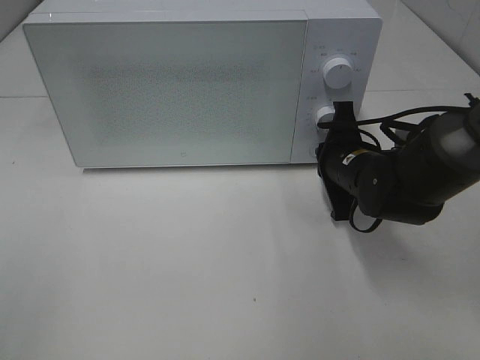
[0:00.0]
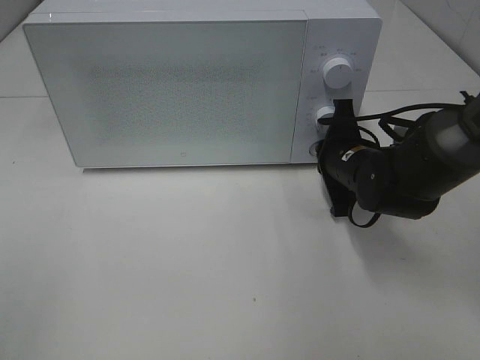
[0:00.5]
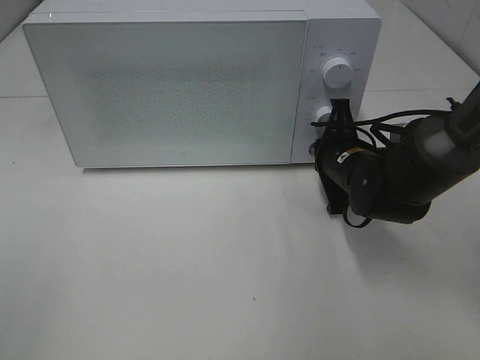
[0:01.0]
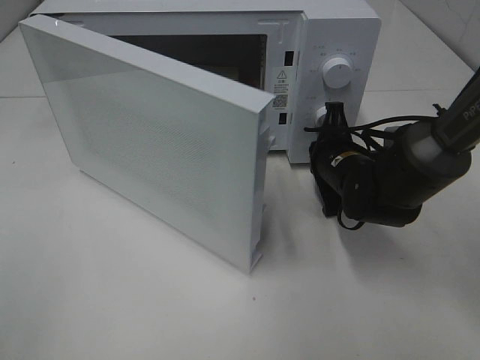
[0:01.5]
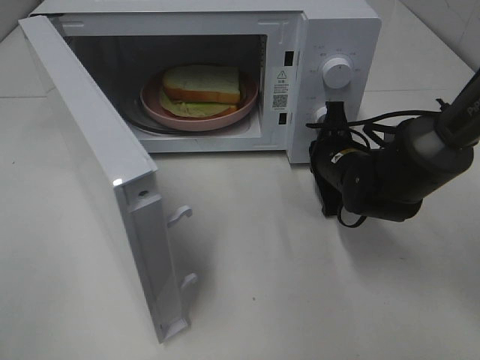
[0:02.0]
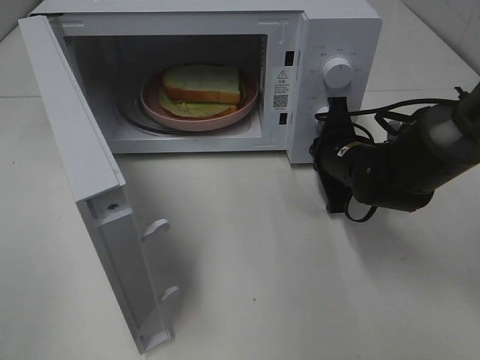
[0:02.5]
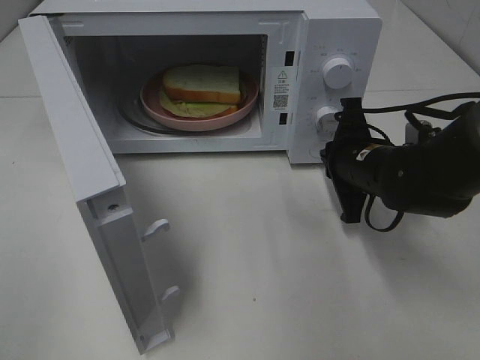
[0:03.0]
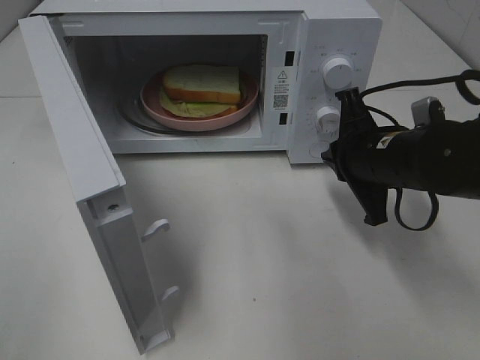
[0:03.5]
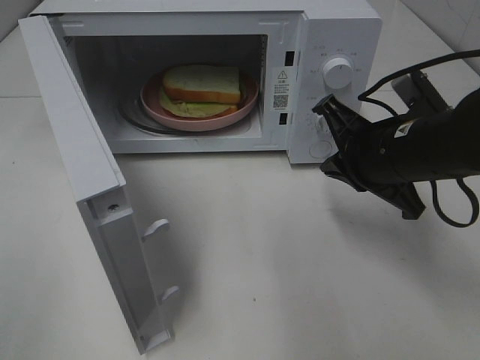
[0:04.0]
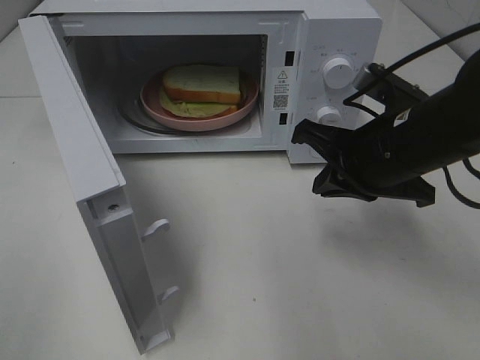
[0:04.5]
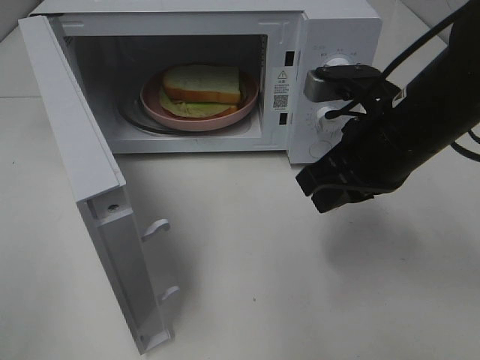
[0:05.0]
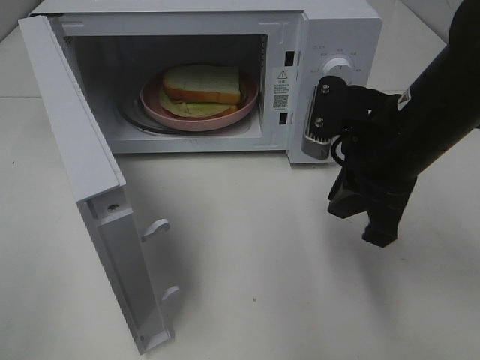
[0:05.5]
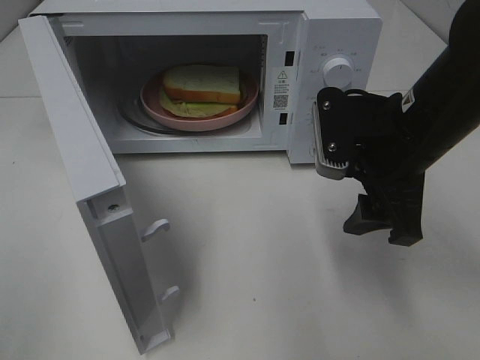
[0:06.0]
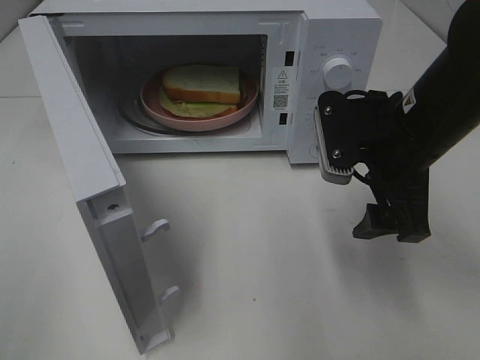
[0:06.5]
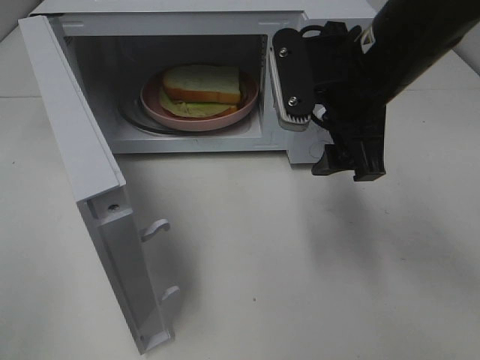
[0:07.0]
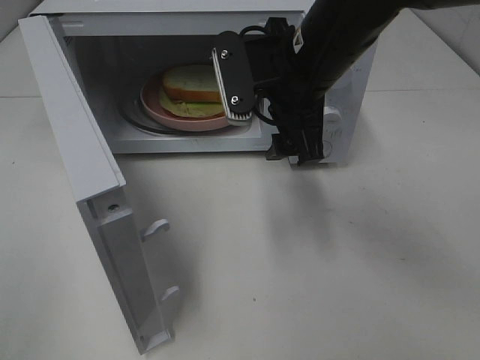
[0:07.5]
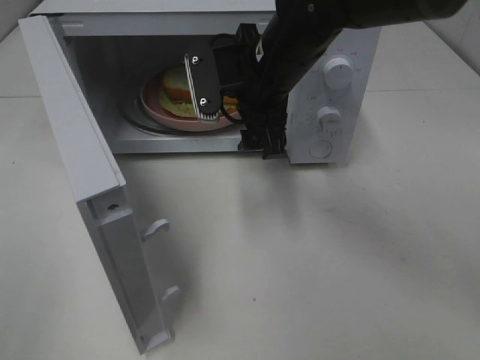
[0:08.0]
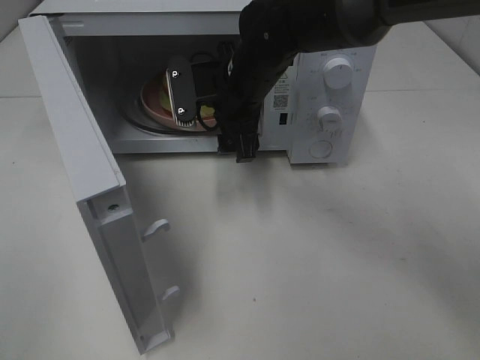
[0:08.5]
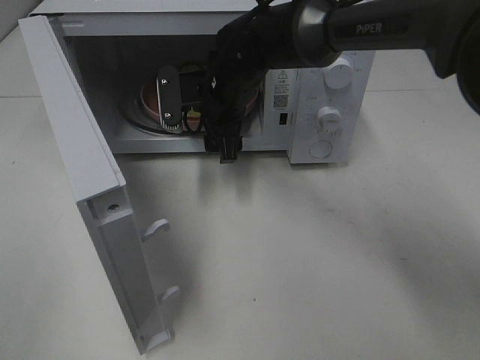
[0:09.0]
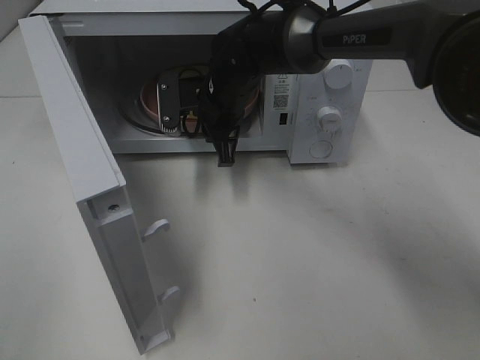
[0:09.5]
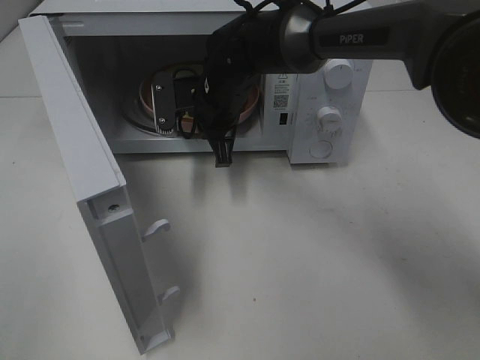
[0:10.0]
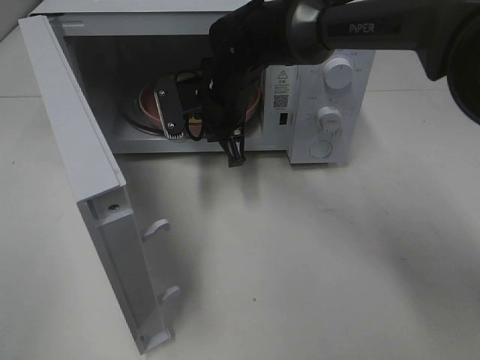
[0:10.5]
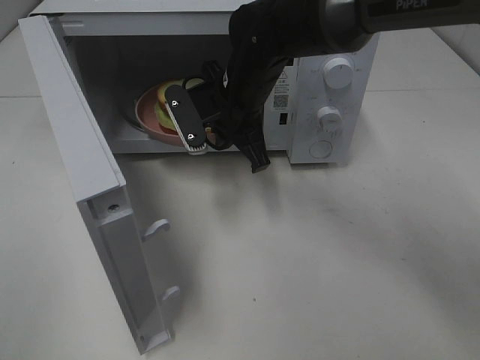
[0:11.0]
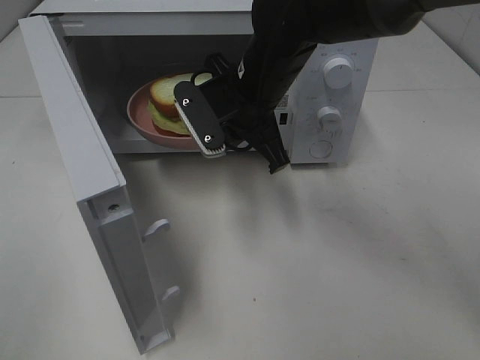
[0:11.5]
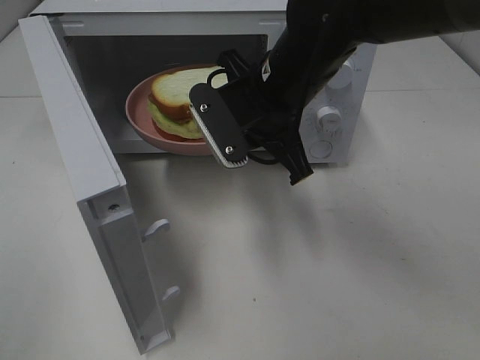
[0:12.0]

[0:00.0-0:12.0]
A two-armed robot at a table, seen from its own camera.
Task of the whole recording: Heat Sandwich.
Step, 0.0 to 3.0 s: Right hand: press the switch.
Step, 3.5 to 10.0 s: Right hand: grab the plate with the sandwich.
2.0 to 4.0 s: The right gripper goes approximately 15 cm upward and backward.
4.0 to 6.0 s: The right gripper opens.
6.0 to 8.0 s: The right gripper heads to the left and forward, covering approximately 15 cm.
8.0 to 10.0 s: The right gripper travels downward, forward and to the left by approximately 10 cm, and closes.
10.0 to 12.0 s: The right gripper heads backward, upward and to the right, covering approximately 15 cm.

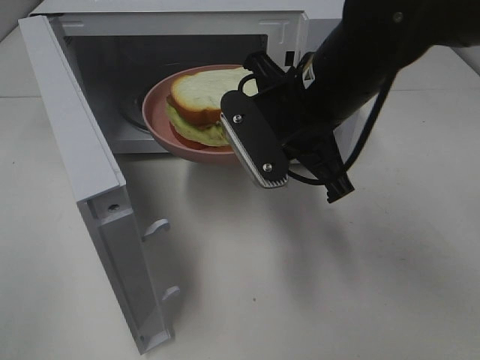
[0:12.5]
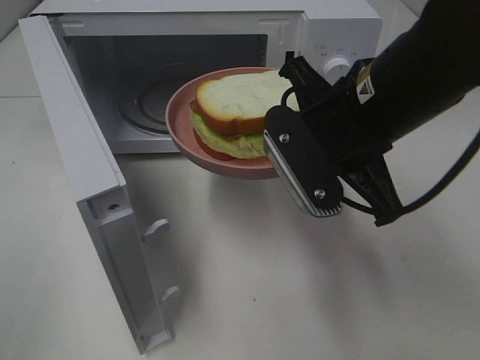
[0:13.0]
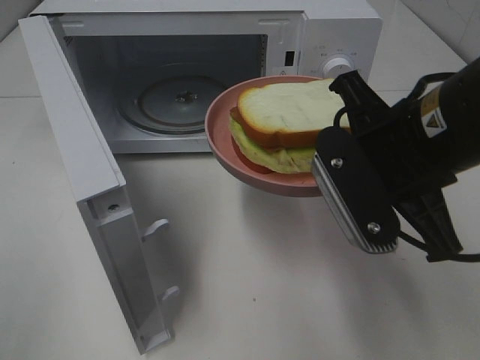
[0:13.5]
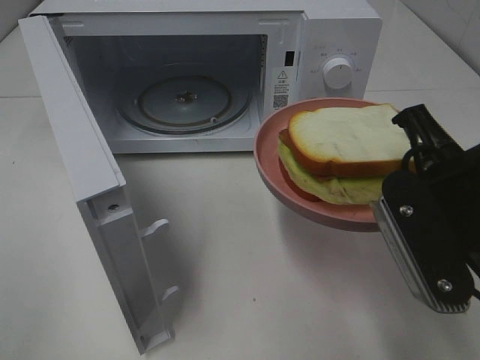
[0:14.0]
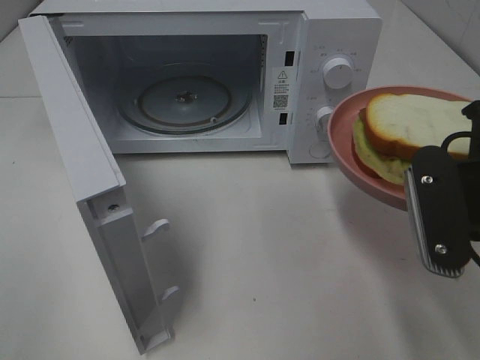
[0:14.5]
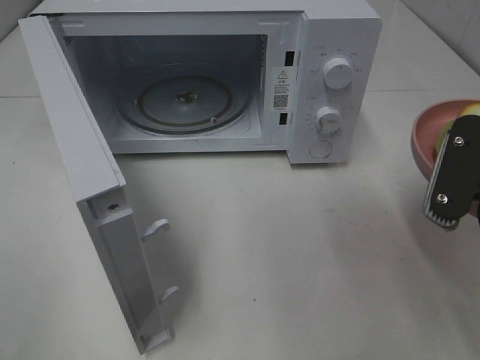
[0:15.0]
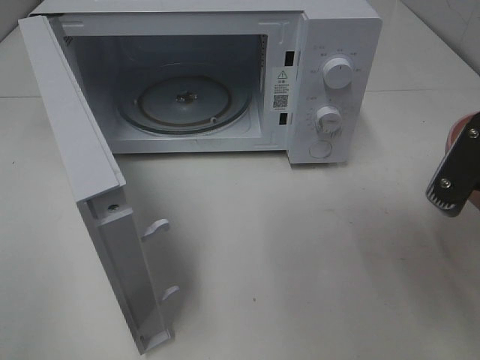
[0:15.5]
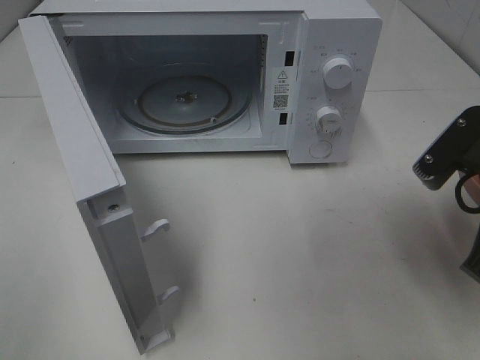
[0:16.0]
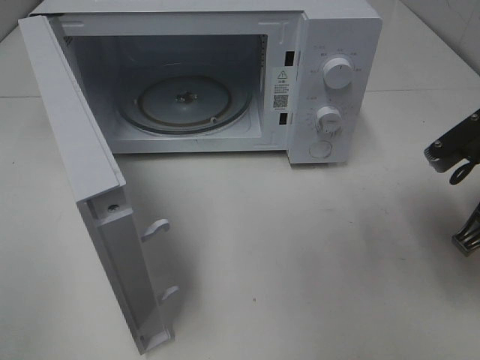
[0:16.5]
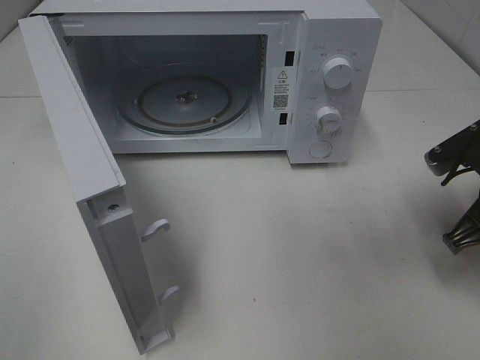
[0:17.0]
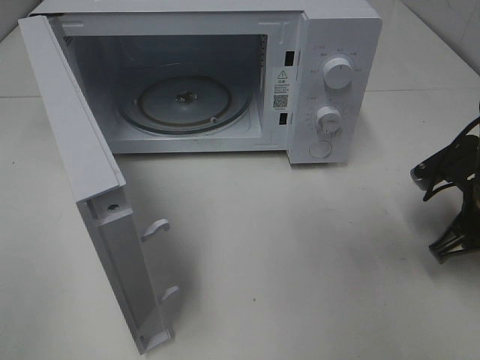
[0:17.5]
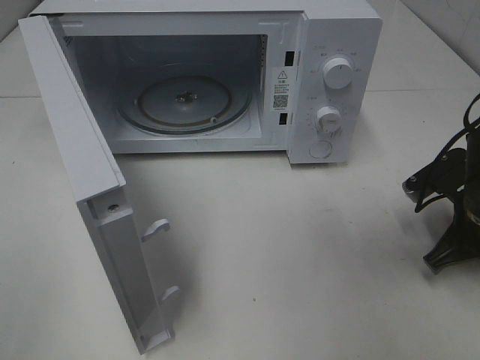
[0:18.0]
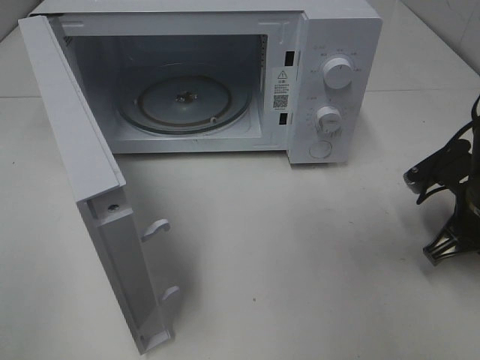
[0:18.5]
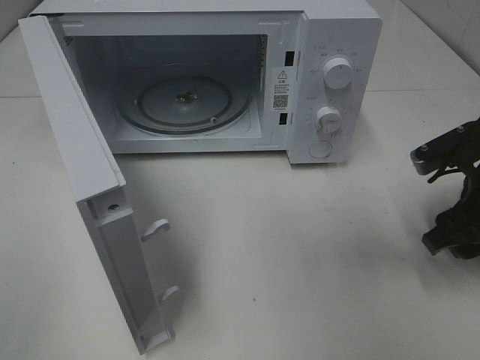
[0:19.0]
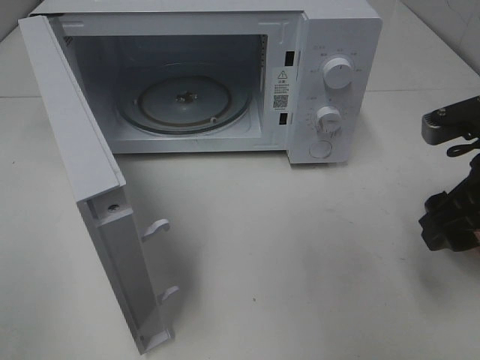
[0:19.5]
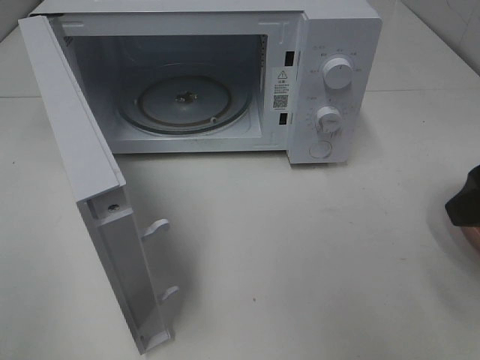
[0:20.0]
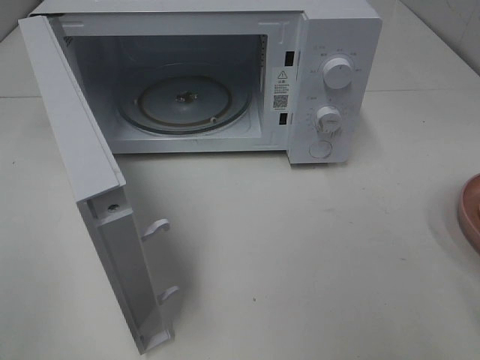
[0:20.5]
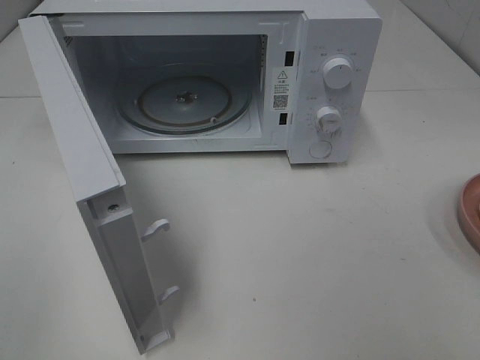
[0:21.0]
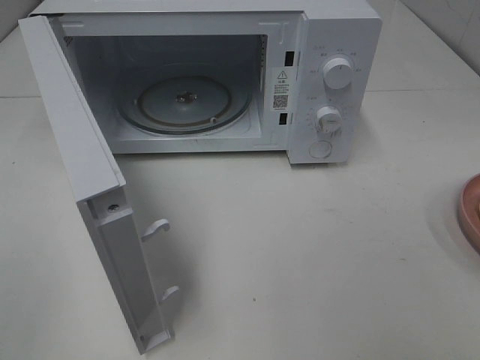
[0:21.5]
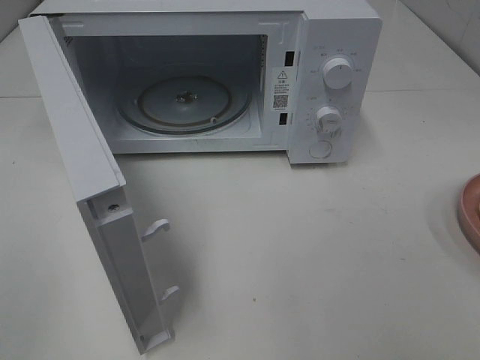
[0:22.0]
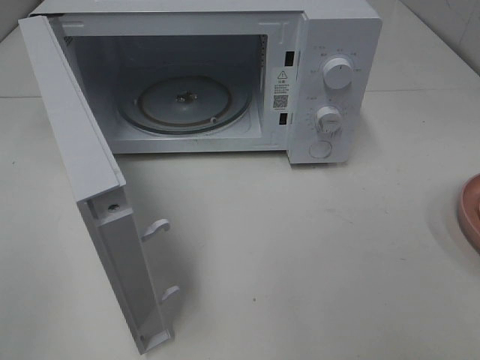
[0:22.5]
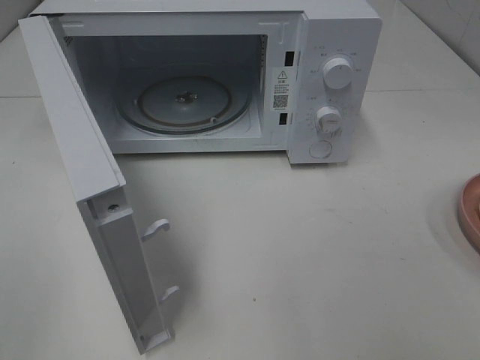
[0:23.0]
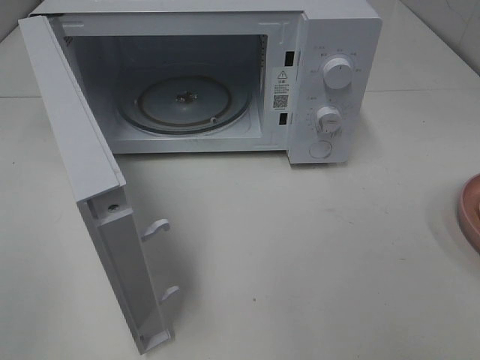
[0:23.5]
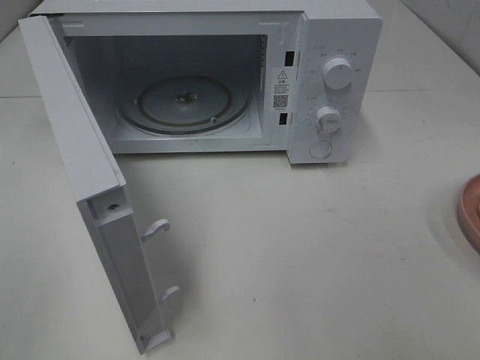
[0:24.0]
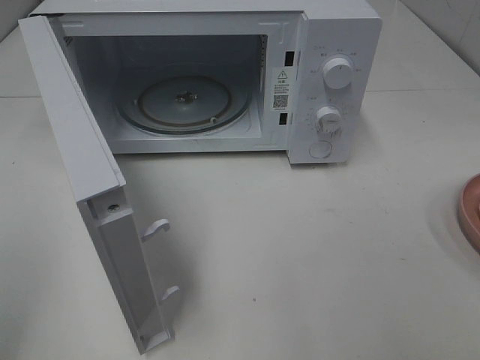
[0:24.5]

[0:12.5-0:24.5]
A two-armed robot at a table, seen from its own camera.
Task of the whole recording: Heat Sandwich.
Step, 12.5 to 19.0 s: Right hand: place the plate on the table.
12.5 to 14.5 s: The right gripper goes about 15 cm to the right and backward.
14.5 to 16.5 s: The right gripper shifts roughly 10 cm forward, to the right and downward.
16.5 to 18.5 s: The right gripper is displaced downward by roughly 5 cm.
18.5 to 20.5 s: The right gripper moves upward and backward, roughly 25 cm, and opens its fingers.

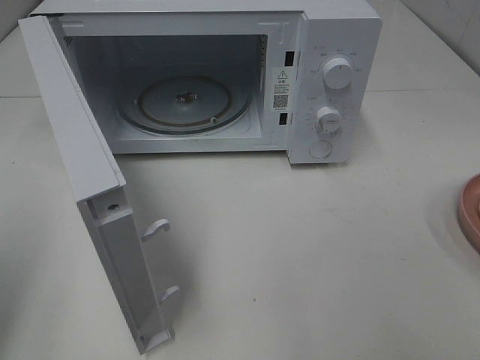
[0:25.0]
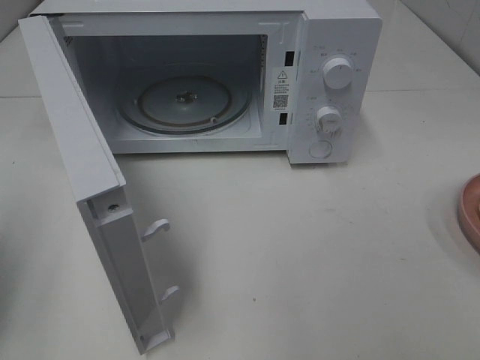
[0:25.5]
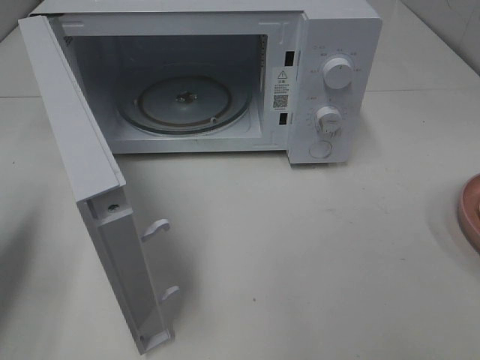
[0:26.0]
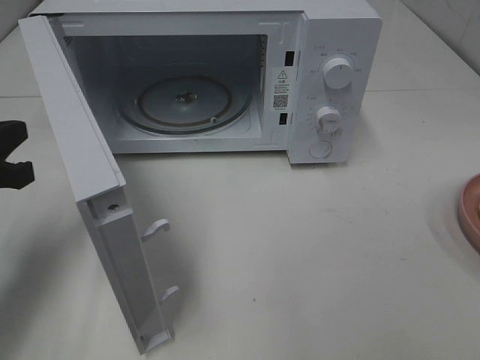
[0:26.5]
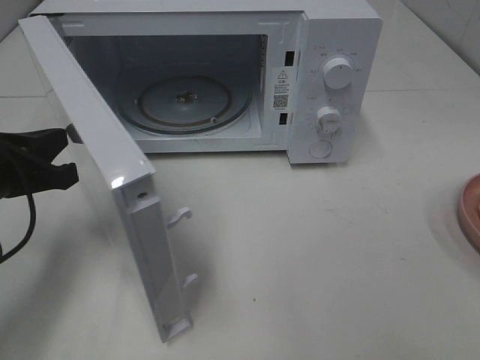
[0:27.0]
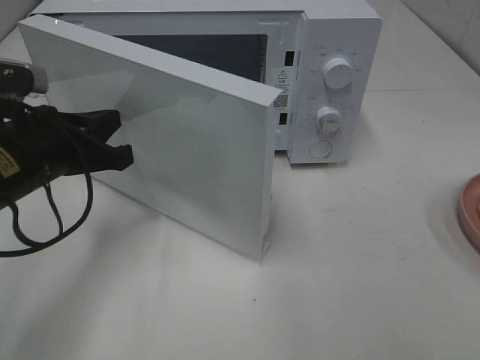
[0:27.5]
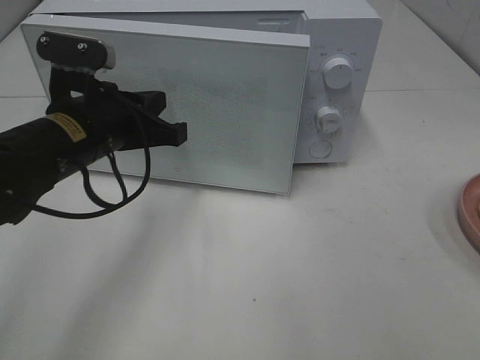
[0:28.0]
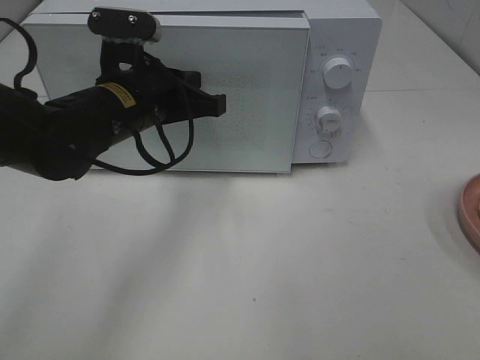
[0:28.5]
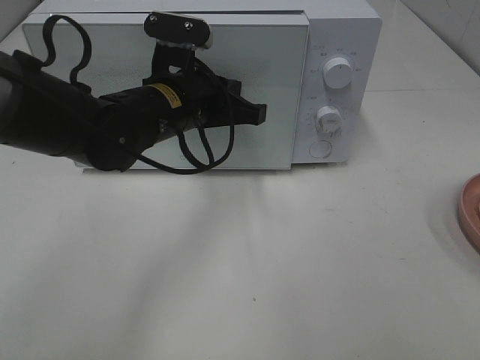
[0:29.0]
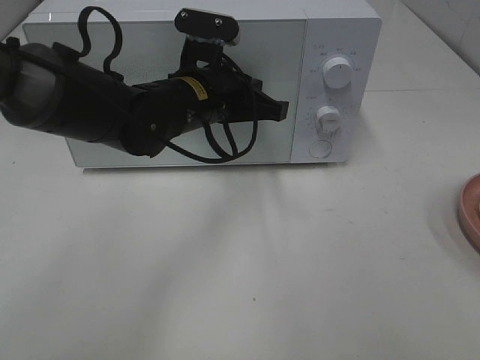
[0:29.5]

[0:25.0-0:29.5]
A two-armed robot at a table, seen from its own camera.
Task of the whole recording: Heat Sandwich.
25.0 to 27.0 s: The left gripper goes approximately 20 cm forward, downward and to the right.
27.0 to 29.5 s: The left gripper goes some 25 cm to the right and forward.
